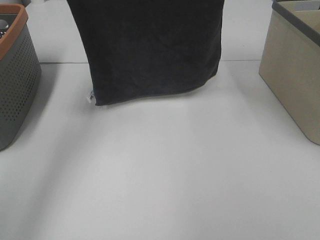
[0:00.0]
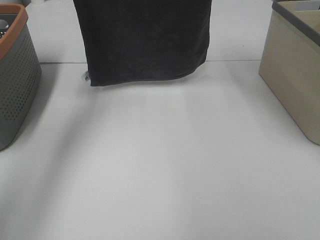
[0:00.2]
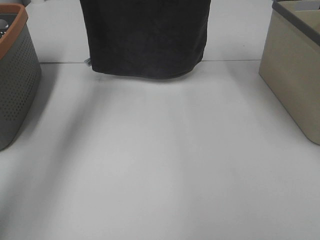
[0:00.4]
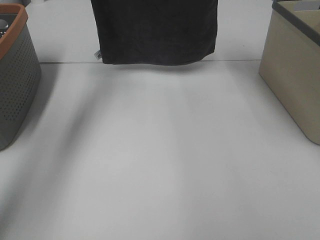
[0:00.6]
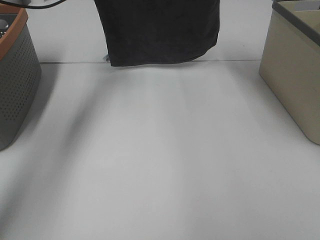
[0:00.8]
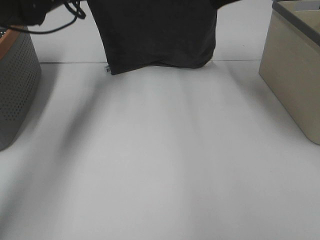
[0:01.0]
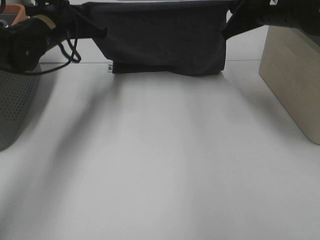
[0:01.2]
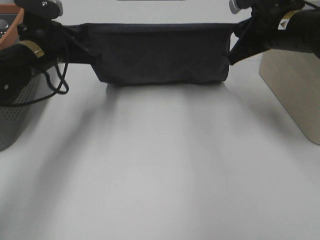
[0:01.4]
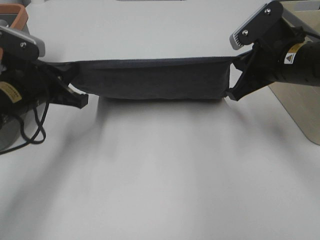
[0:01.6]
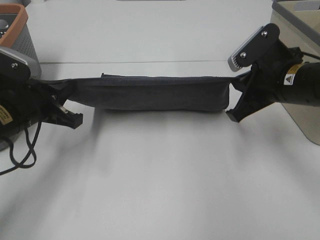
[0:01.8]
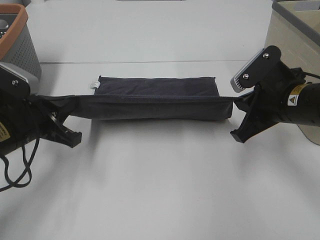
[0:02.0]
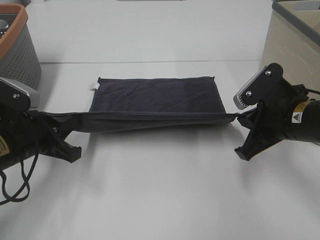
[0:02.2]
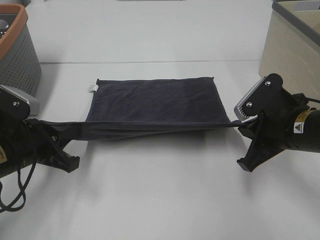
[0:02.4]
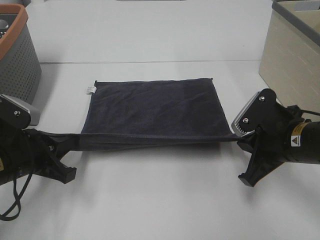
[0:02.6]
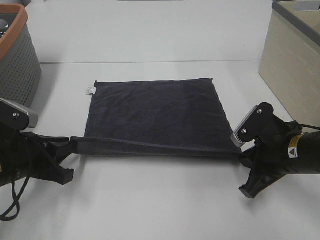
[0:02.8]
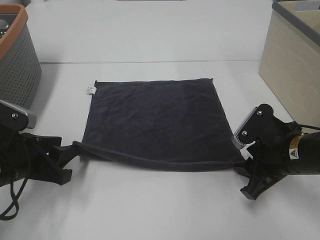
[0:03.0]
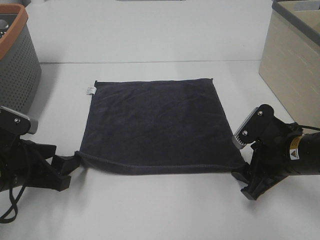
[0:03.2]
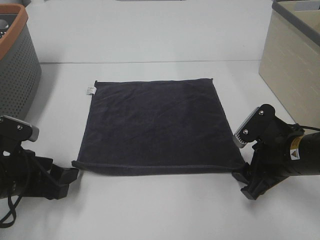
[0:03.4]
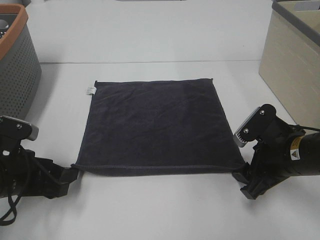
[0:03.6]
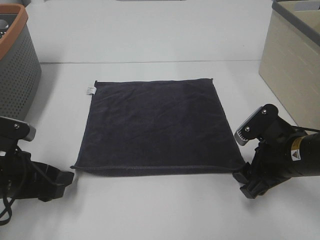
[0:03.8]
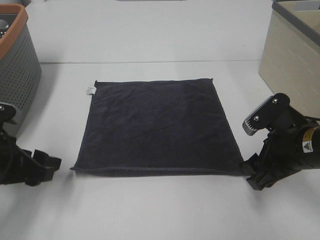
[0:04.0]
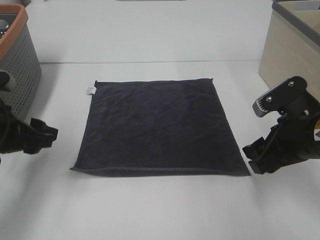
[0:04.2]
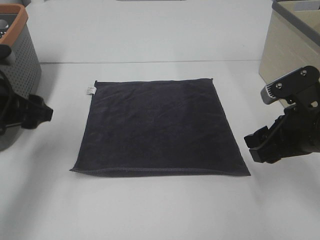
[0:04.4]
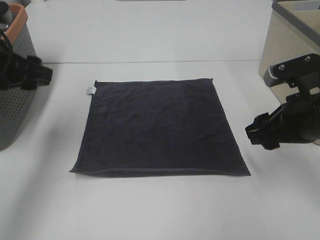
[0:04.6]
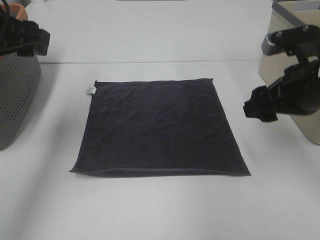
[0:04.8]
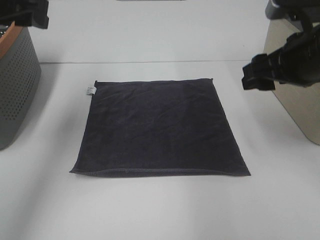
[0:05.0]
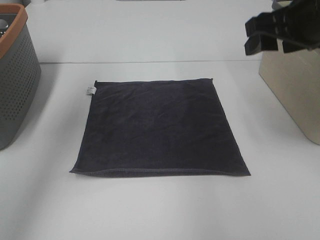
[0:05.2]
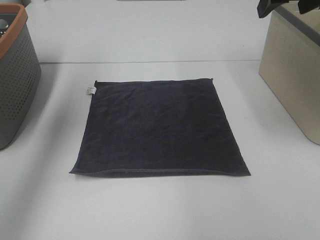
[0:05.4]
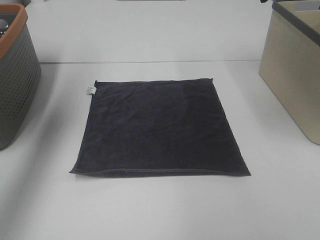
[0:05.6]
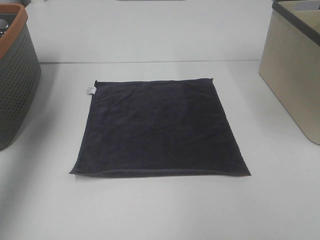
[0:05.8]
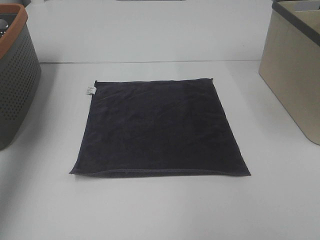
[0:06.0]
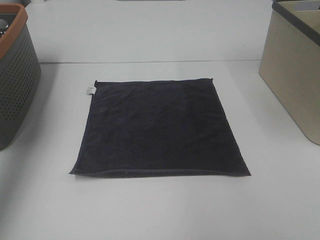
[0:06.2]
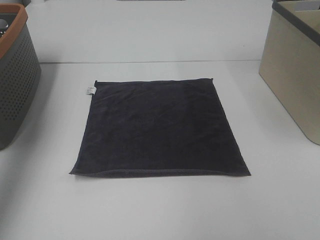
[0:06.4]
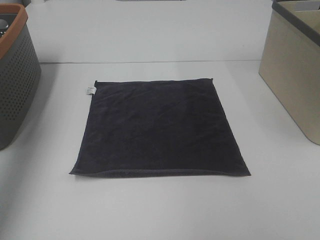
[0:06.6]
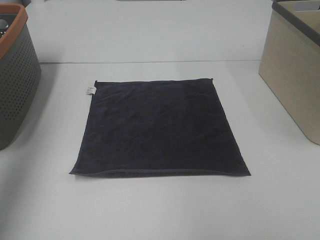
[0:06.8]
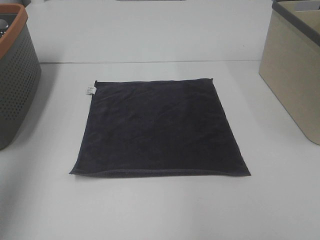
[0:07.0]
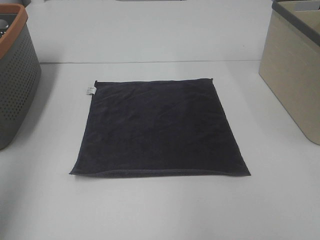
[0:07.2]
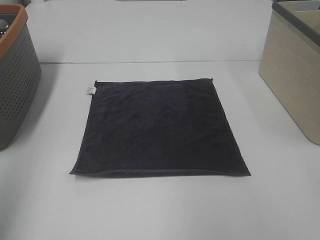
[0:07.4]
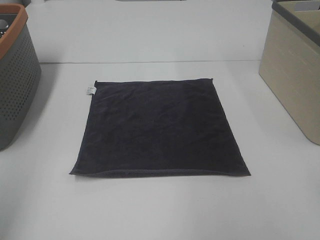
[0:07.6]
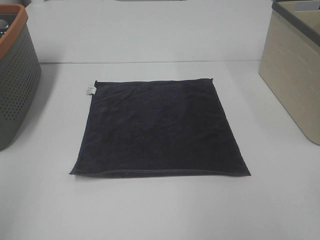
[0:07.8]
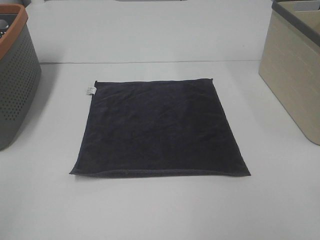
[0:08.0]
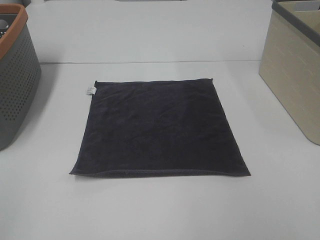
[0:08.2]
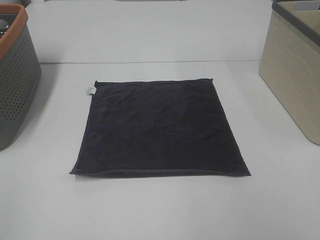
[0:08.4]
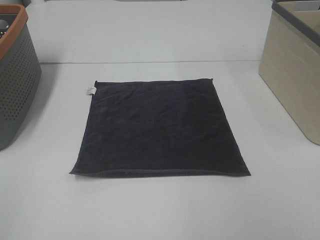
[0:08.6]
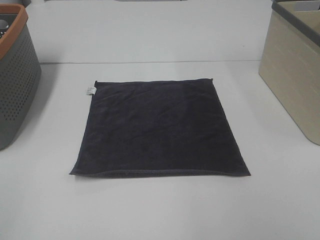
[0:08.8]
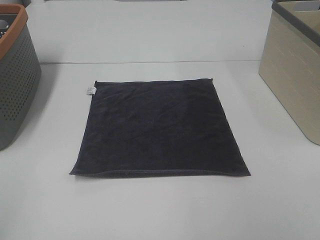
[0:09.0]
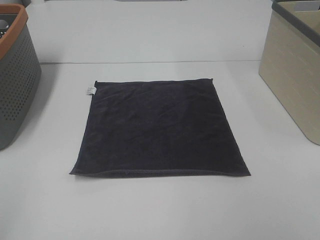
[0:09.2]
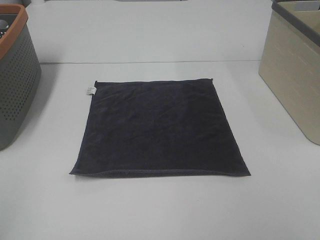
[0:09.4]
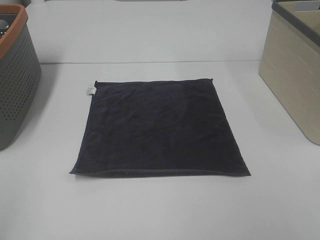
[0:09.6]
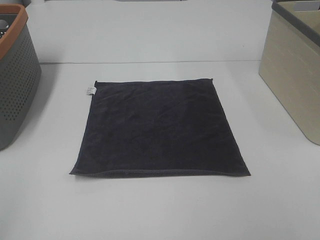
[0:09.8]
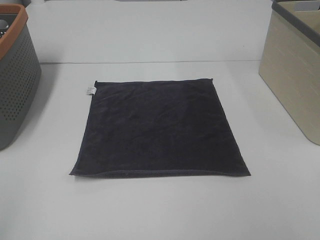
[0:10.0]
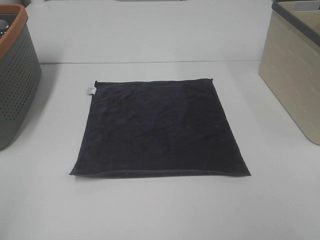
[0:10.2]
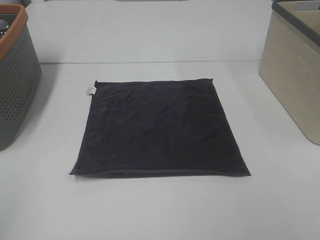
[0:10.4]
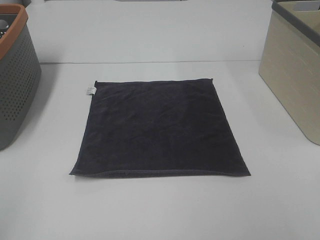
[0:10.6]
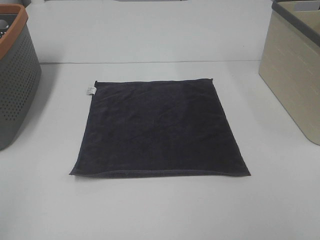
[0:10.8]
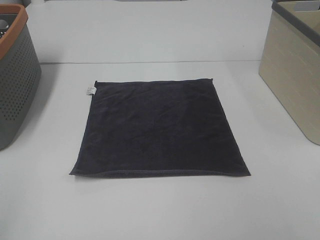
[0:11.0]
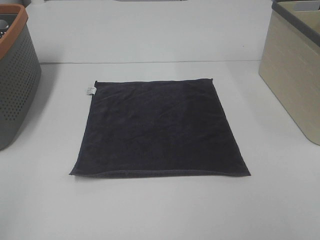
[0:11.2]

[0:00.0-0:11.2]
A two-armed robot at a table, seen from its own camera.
Task of the whole recording: Remove the towel and place it.
0:00.0 to 0:01.6: Both grippers travel together downward and backward, roughly 20 cm.
0:01.6 to 0:03.2: The right gripper shifts about 15 cm downward and backward, and opens its fingers. Meanwhile the left gripper is displaced backward and downward by approximately 10 cm, and opens up.
0:03.2 to 0:04.8: The left gripper moves upward and forward, about 20 cm, while the right gripper goes roughly 10 cm upward.
0:04.8 to 0:06.4: The right gripper heads upward, covering approximately 25 cm. Meanwhile the left gripper goes roughly 20 cm upward and to the left.
0:06.4 to 0:08.0: The left gripper travels backward and downward by approximately 30 cm.
0:09.6 to 0:11.2: Both grippers stay put.

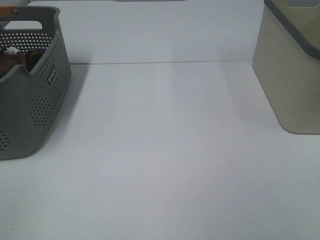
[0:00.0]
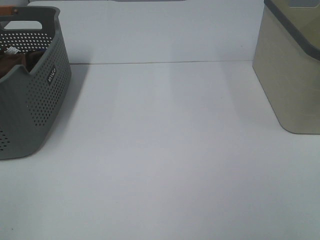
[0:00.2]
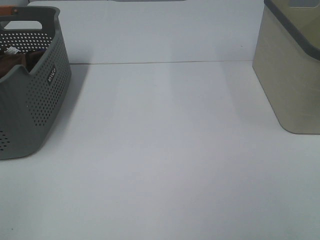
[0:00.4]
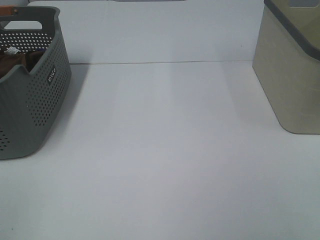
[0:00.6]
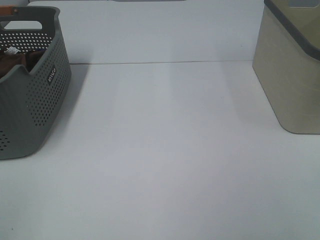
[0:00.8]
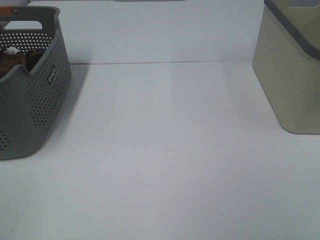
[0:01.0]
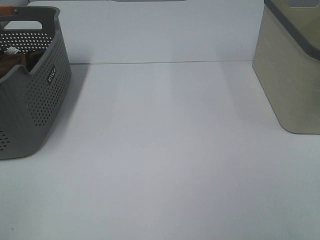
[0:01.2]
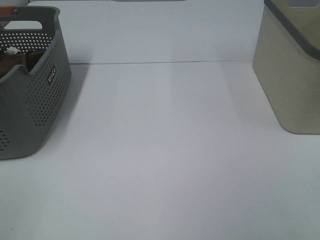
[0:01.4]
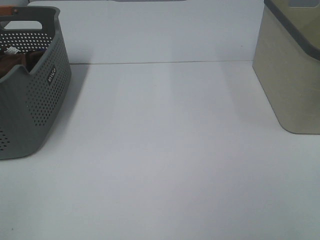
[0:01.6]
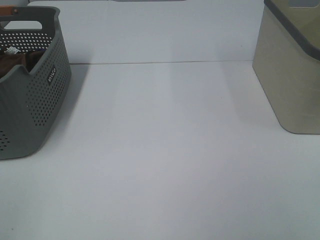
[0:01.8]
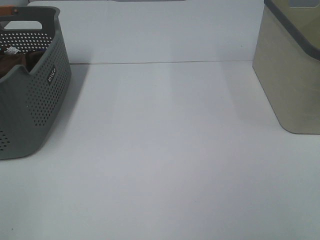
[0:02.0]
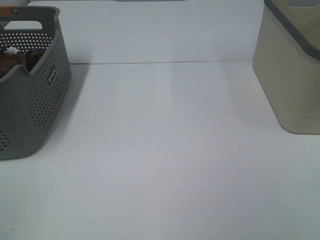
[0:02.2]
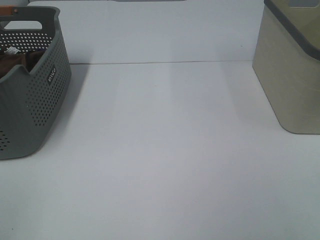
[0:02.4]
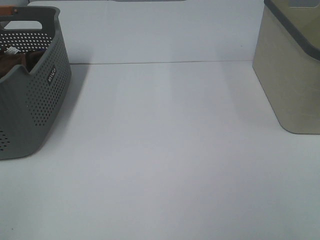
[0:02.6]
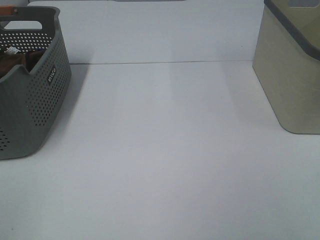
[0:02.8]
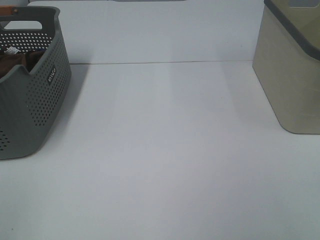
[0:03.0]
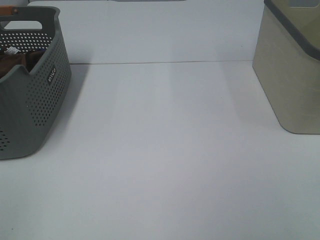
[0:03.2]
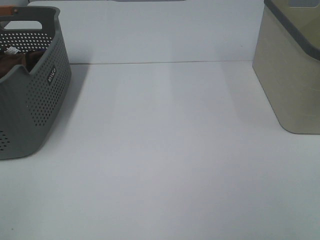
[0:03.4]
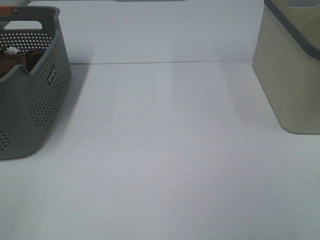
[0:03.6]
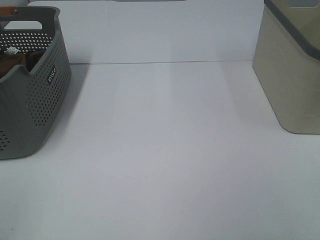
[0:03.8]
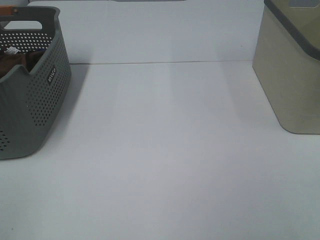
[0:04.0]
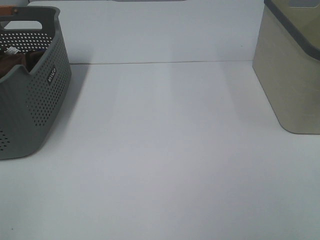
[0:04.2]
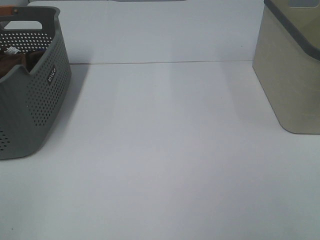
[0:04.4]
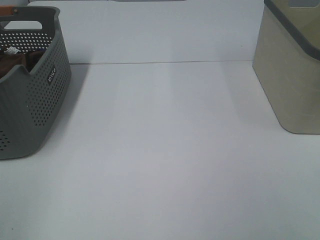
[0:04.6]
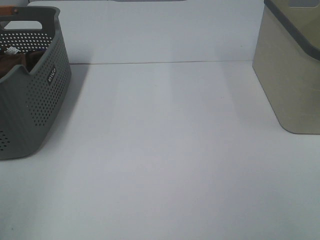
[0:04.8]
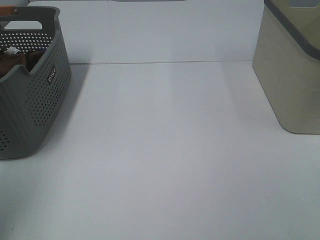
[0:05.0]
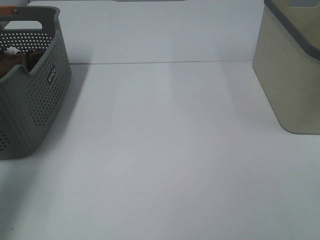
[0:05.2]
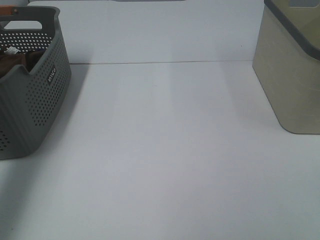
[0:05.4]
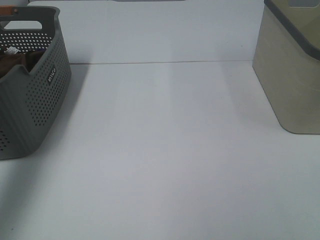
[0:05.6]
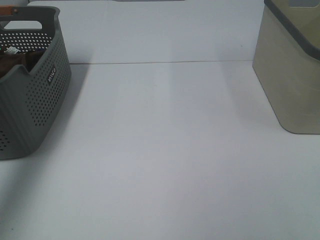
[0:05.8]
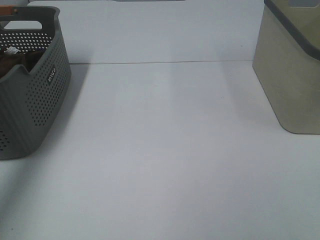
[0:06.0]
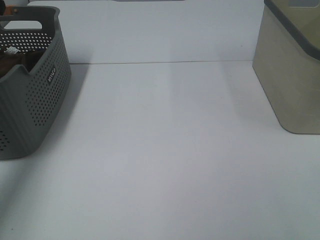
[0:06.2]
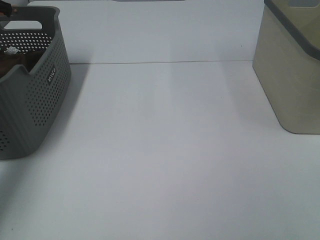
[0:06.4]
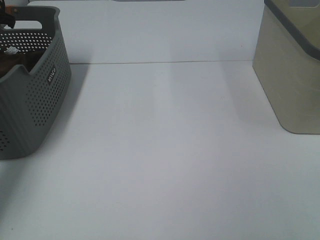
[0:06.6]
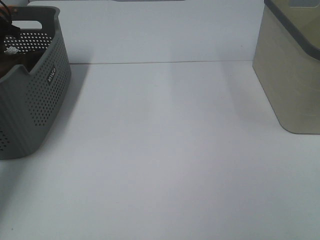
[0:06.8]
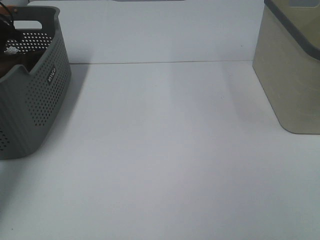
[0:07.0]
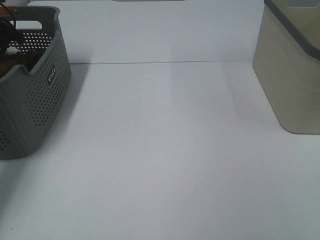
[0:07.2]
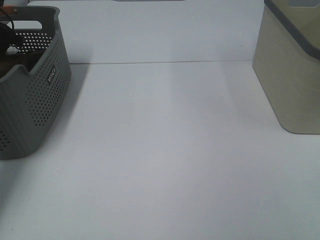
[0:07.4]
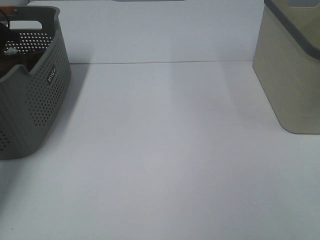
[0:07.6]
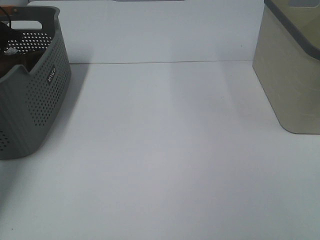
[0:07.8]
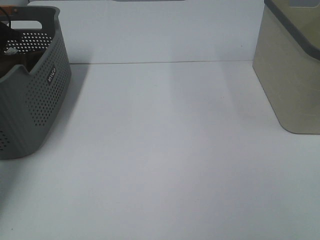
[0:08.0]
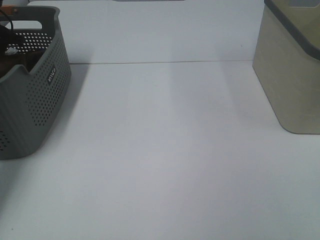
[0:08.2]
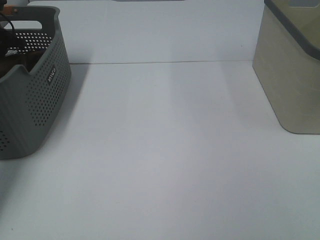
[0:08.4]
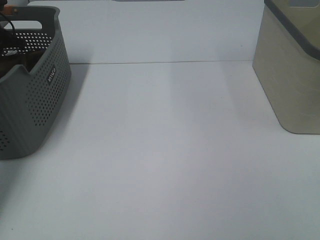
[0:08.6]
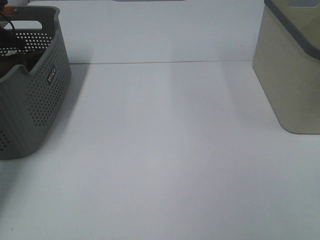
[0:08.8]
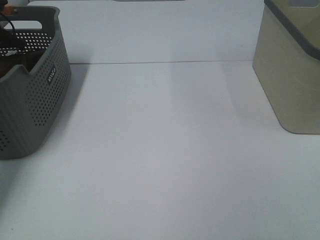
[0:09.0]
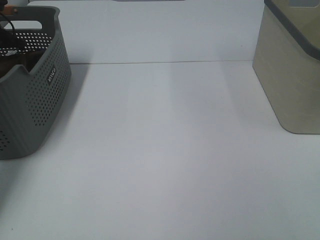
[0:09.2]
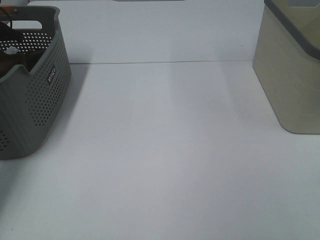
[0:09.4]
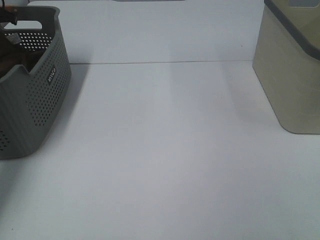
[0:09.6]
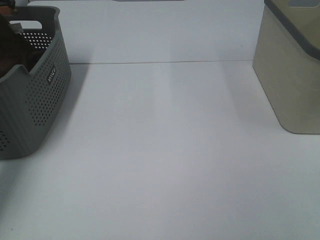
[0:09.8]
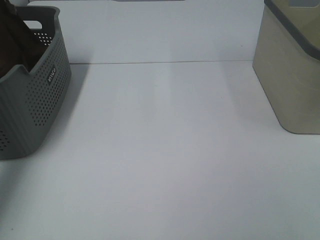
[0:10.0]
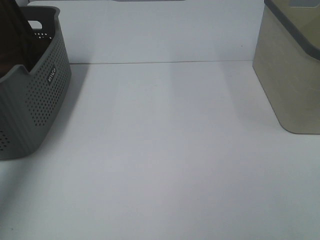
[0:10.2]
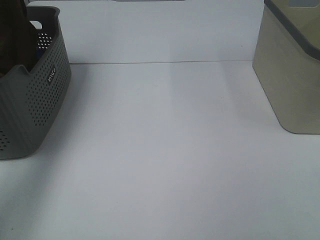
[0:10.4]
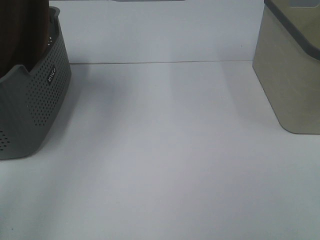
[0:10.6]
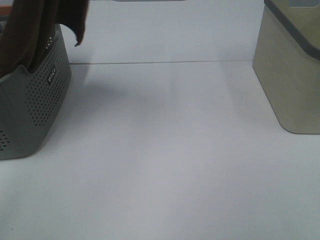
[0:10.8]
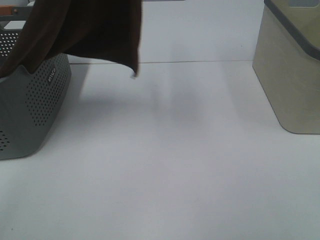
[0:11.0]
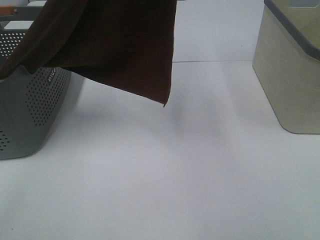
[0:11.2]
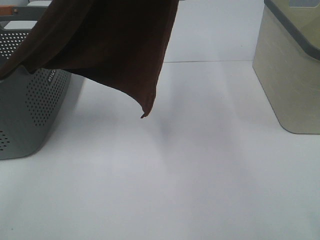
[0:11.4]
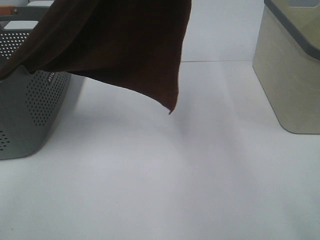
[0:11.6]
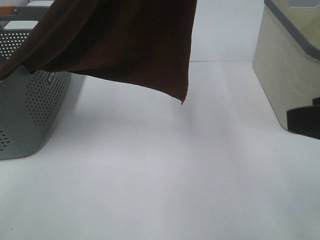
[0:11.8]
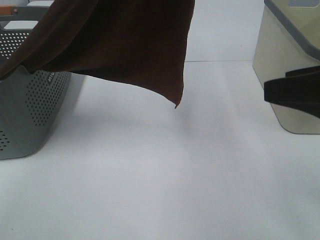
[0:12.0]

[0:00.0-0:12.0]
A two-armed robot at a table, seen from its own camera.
Task of the whole recording: Remove the towel and place it.
0:00.0 to 0:03.0: Neither gripper changes place.
0:04.4 to 0:06.0: The left gripper shifts roughly 40 cm forward.
0:06.0 to 0:07.6: The left gripper moves forward, downward and to the left, approximately 15 cm.
0:09.0 to 0:10.4: The left gripper shifts about 30 cm upward and backward.
0:10.4 to 0:12.0: The right gripper is displaced forward by about 15 cm. Meanwhile the left gripper shifts approximately 30 cm to the right and backward.
